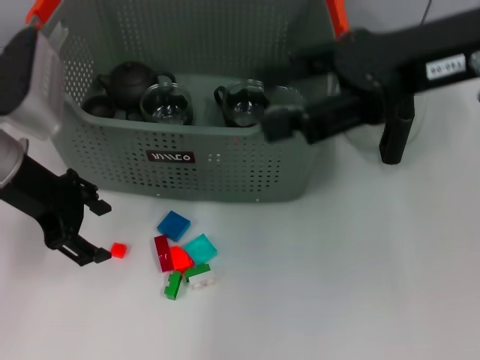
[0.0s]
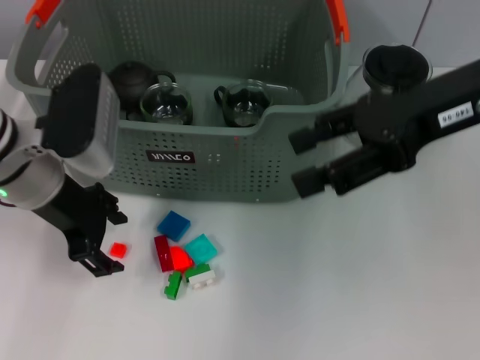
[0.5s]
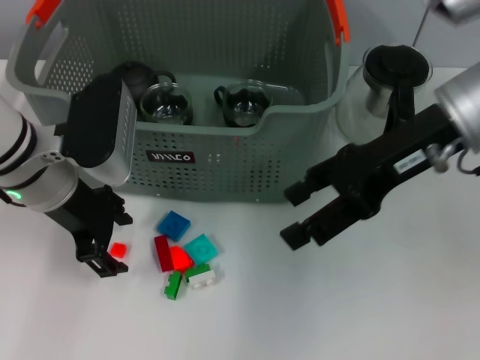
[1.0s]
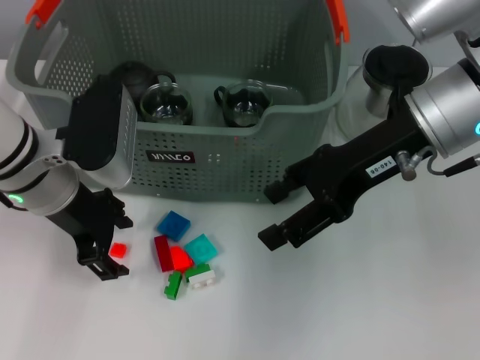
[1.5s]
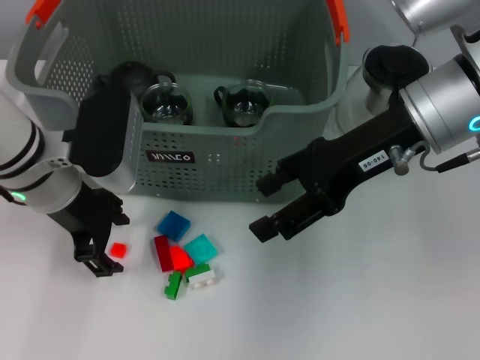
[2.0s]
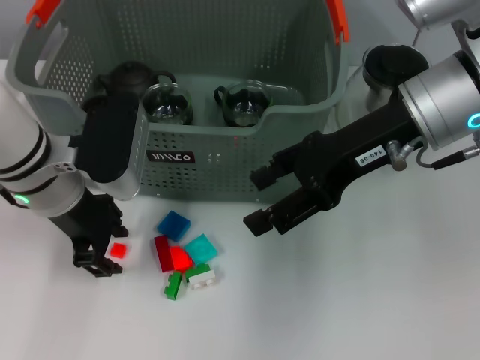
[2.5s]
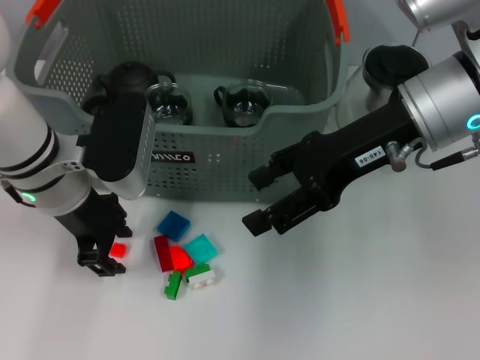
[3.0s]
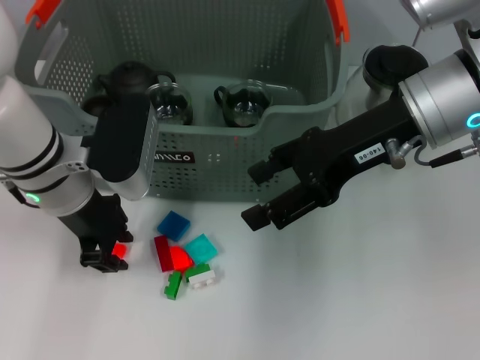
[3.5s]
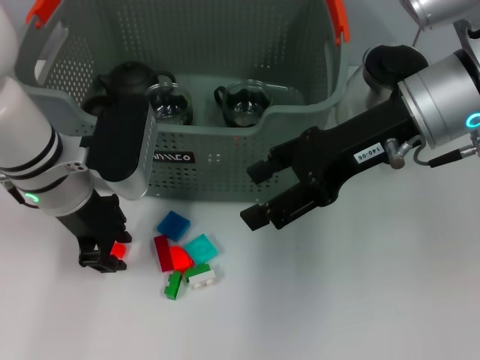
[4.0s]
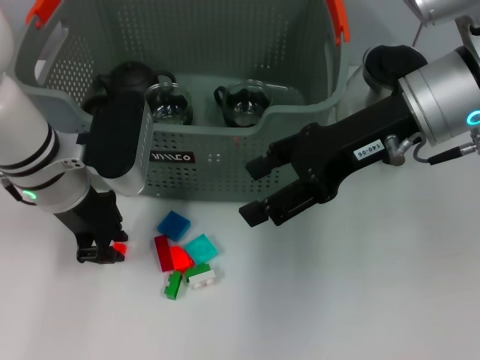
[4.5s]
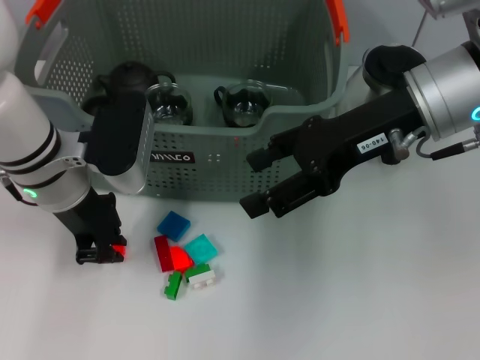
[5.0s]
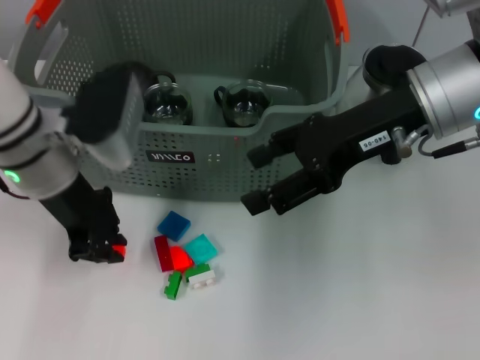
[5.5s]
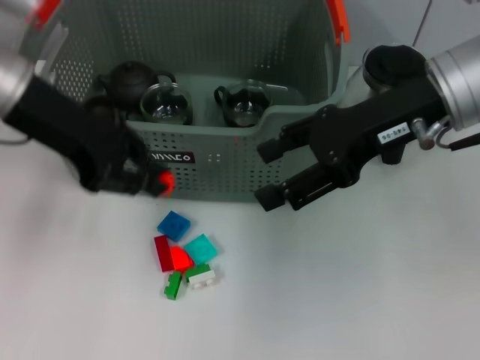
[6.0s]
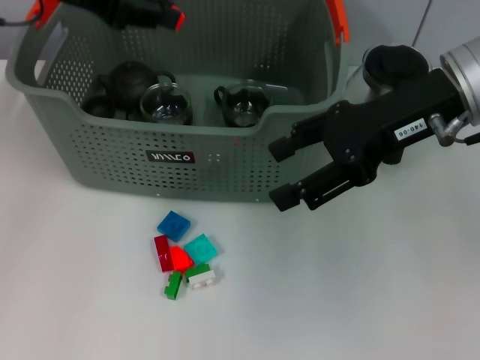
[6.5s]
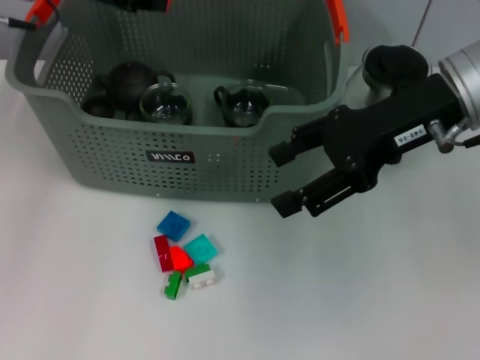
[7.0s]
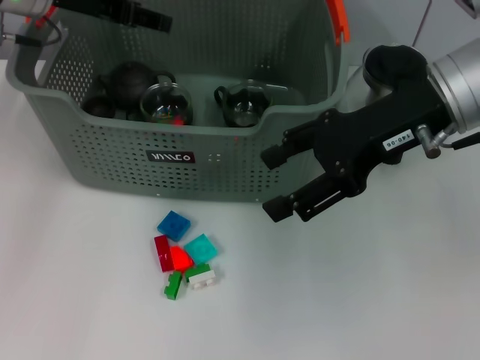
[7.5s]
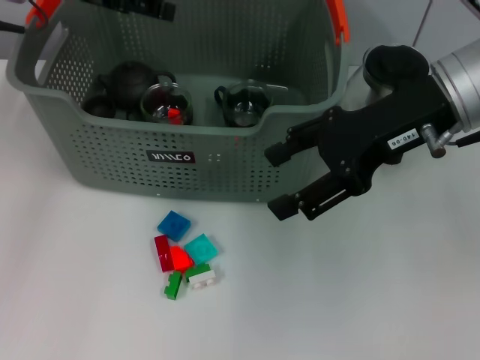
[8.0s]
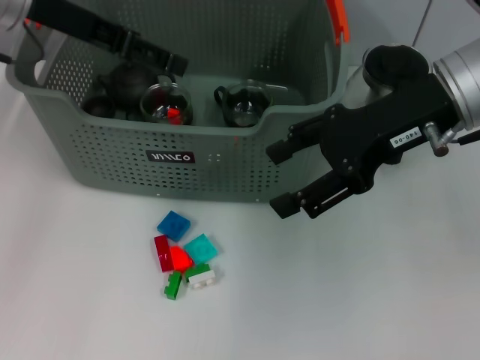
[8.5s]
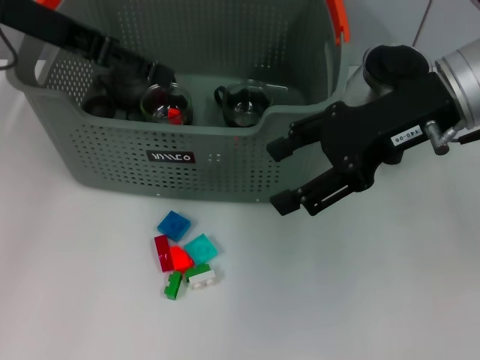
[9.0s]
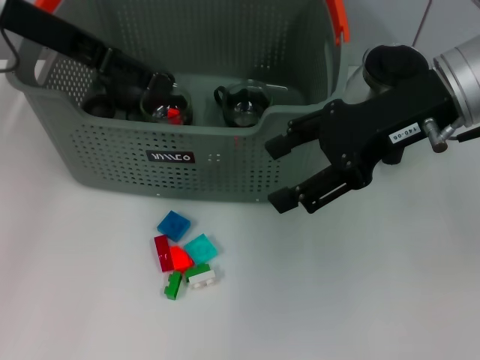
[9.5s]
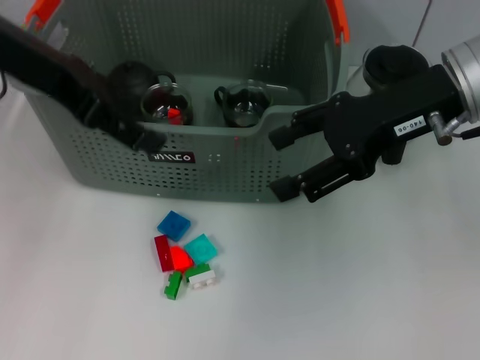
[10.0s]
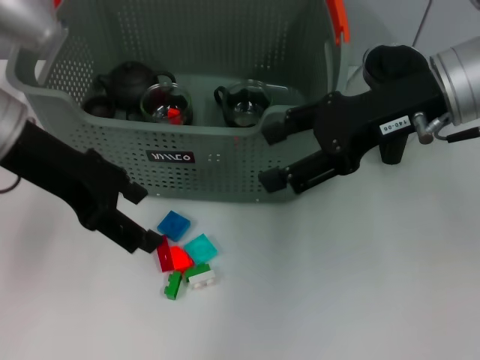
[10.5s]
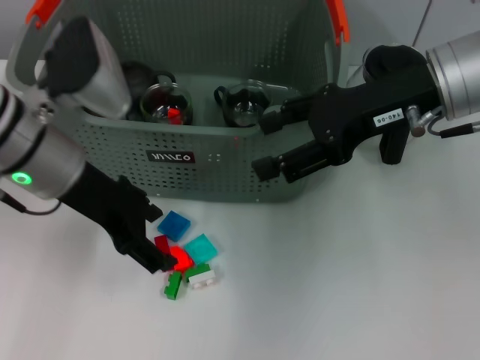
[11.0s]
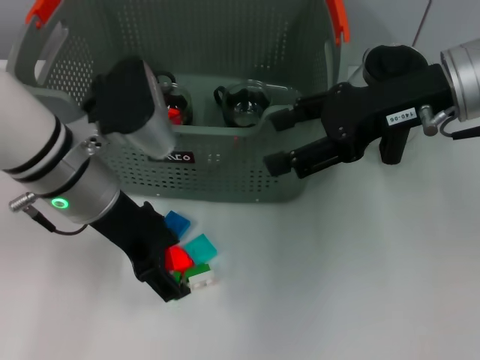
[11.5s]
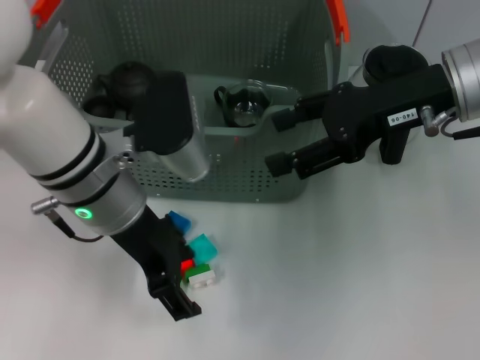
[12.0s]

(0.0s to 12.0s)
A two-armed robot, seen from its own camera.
Task of the whole recording: pick up the teacup on the table and place it into the storage bin, pick up the block on the table and place it into the storage bin.
Step, 0.0s - 5.5s: Grasp the orange block with left gripper.
Step, 6.0s - 7.5s: Place the orange block in the storage box with left gripper.
0.0s - 2.0s: The left gripper travels to the right by about 5 cm, while the right gripper goes approximately 5 cm downward.
2.0s - 4.0s: The left gripper closes.
4.0s - 6.0s: The left gripper travels upward by approximately 10 cm.
6.0s - 8.0s: The left gripper is displaced forward by approximately 10 cm, and opens up.
8.0s - 10.0s: The left gripper shifts about 10 cm backward.
10.0s - 12.0s: The left gripper is displaced downward and to the right by approximately 15 cm.

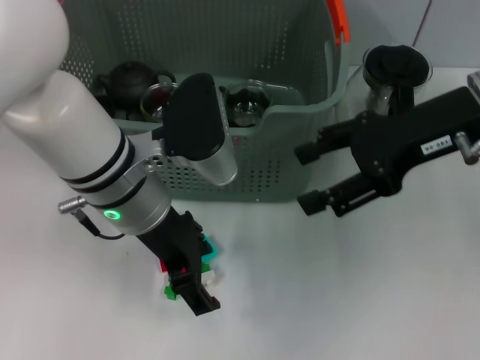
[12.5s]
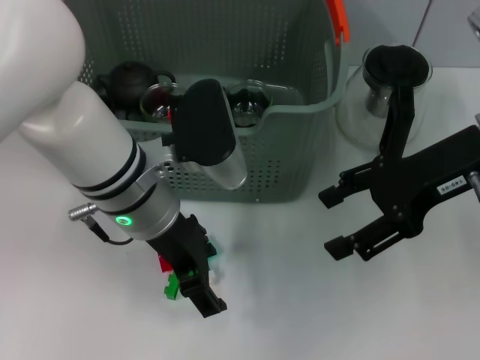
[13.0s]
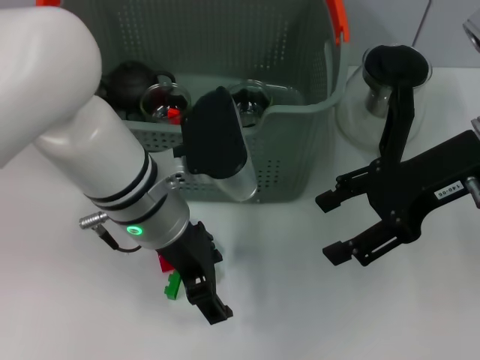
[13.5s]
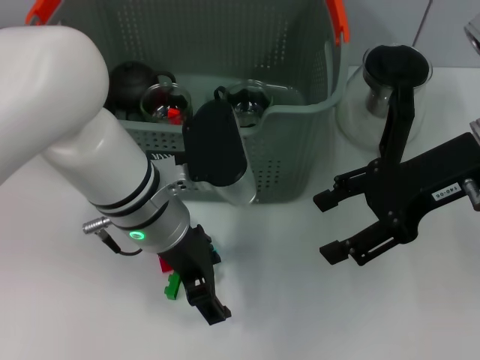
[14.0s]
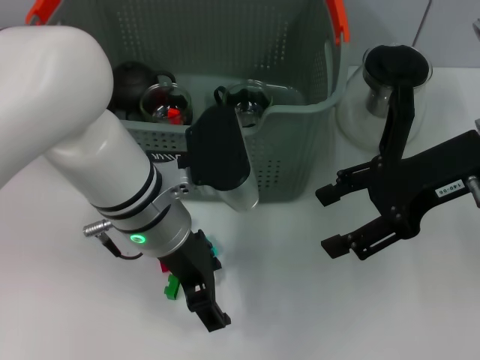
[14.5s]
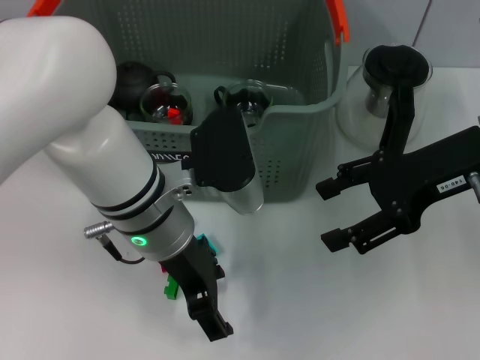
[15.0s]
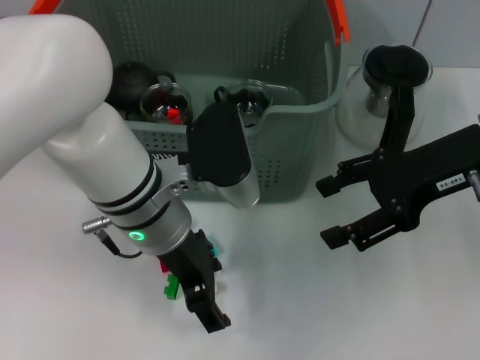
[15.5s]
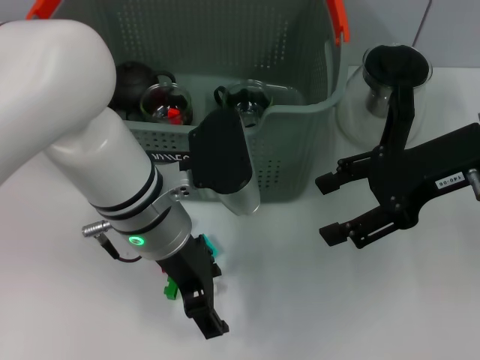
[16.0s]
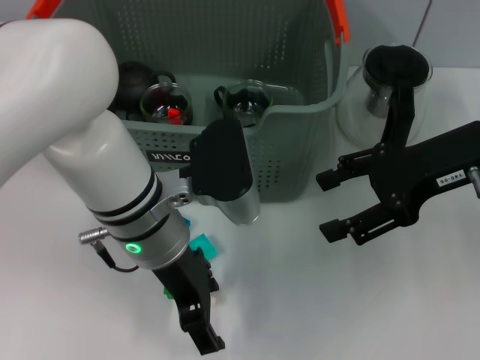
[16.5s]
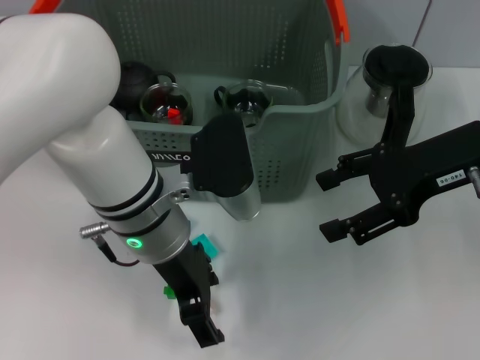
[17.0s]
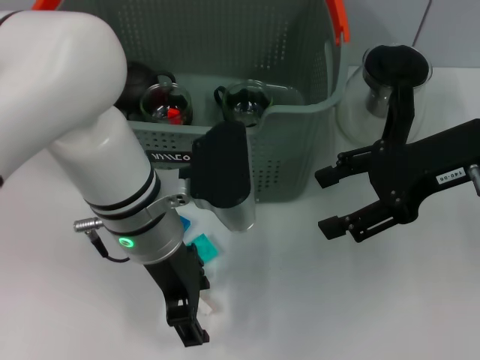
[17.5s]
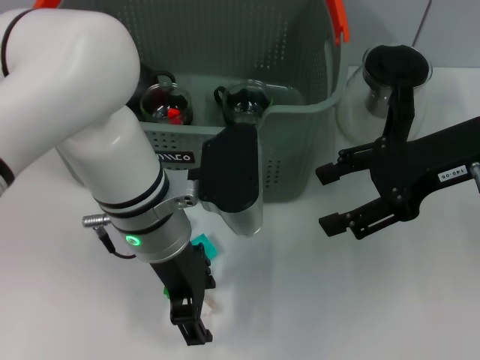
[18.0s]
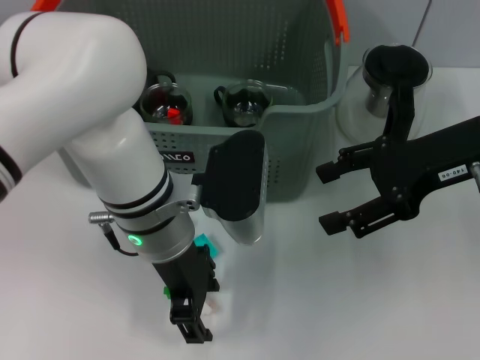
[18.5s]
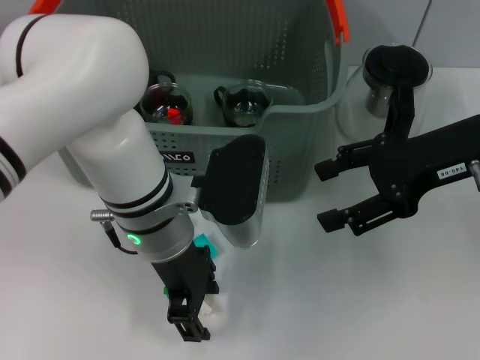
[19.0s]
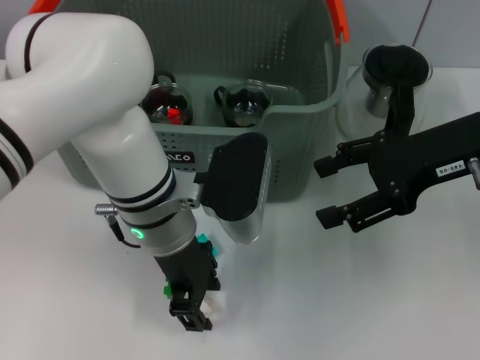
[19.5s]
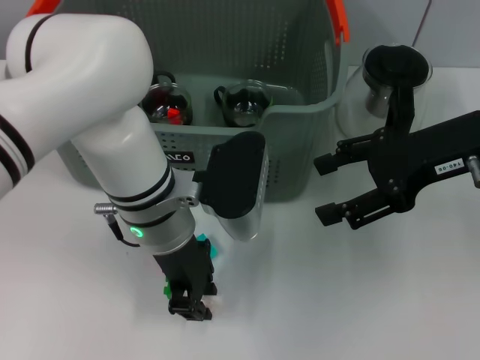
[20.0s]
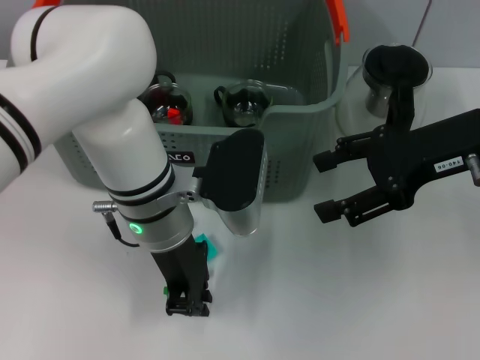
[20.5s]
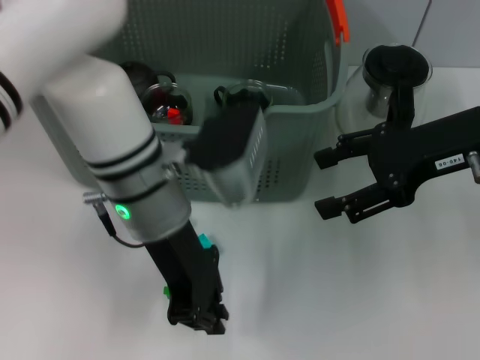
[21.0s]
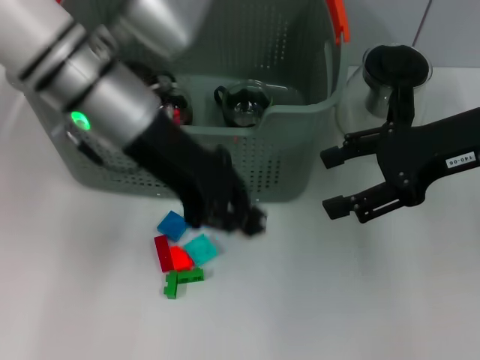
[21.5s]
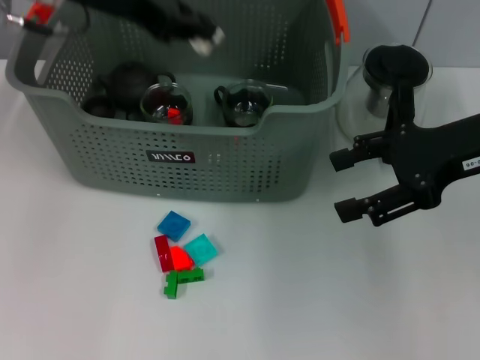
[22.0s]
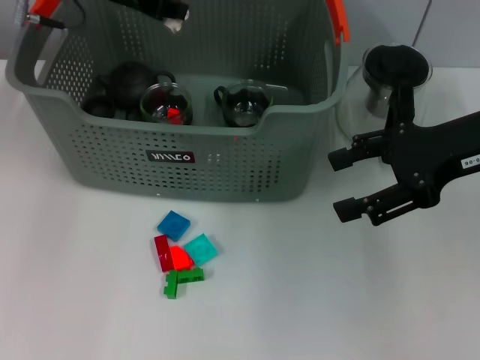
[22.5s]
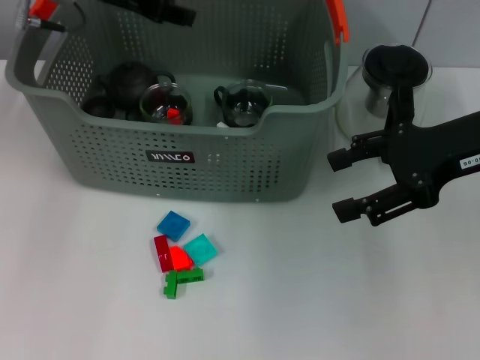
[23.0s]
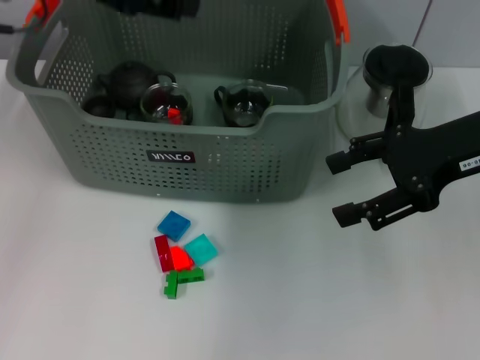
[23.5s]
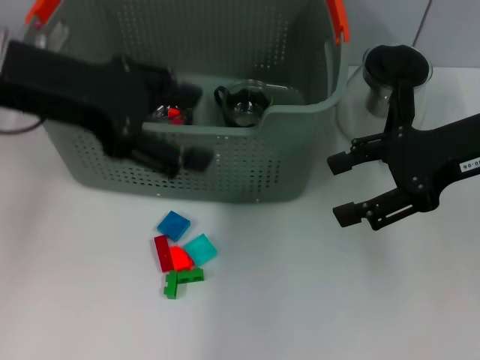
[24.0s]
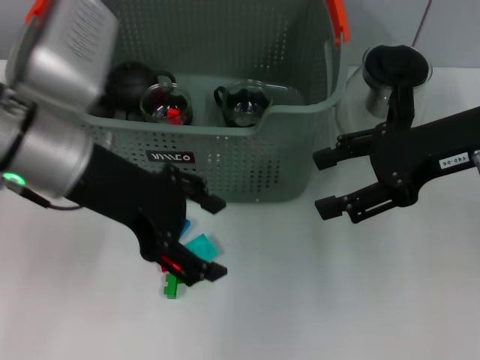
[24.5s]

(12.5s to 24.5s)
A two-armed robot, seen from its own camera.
Task of the whole recording: pick up the teacup on the table and place it into the storage bin, pick up the block on the table and place it into the storage bin.
Step, 12.5s - 21.0s: Grasp the white block with left gripper.
Step, 21.5s - 22.5s: Place the white block in the storage box with left gripper.
14.5s - 18.5s: There are only small adjustments of the grippers.
18.5s - 20.5s: The left gripper closes its fingers.
20.5s - 22.5s: The left gripper travels forward, upward and to the left by approximately 20 cm.
22.5s - 24.5s: The left gripper shifts about 15 cm backward, and opens its fingers.

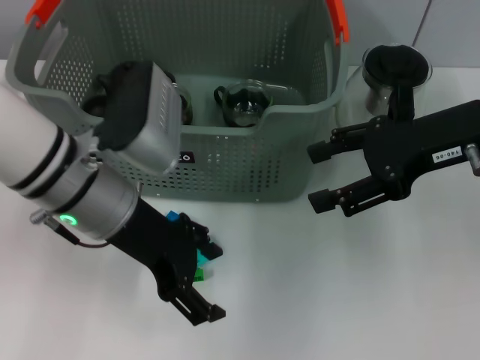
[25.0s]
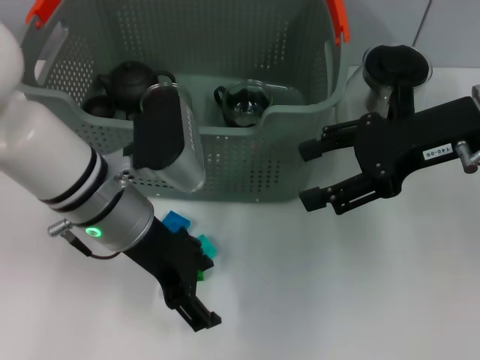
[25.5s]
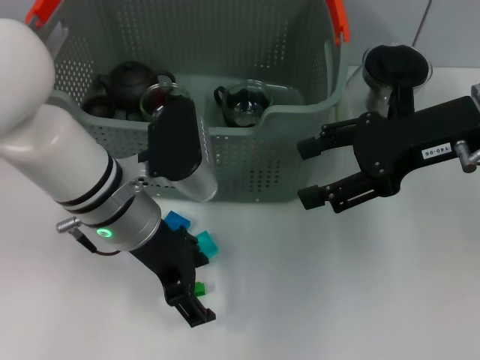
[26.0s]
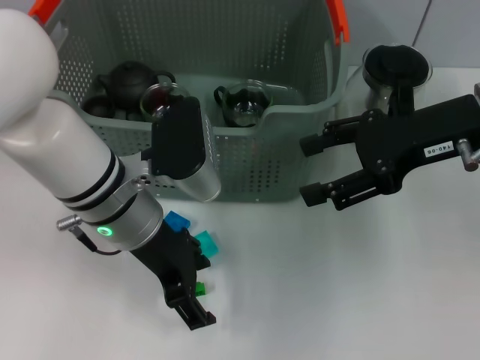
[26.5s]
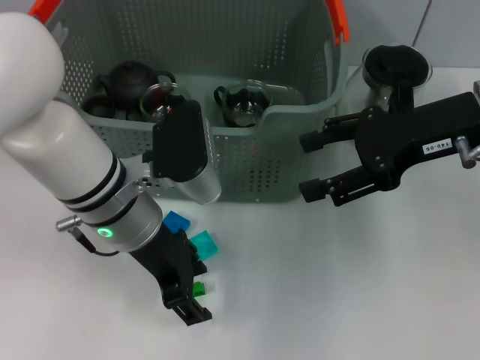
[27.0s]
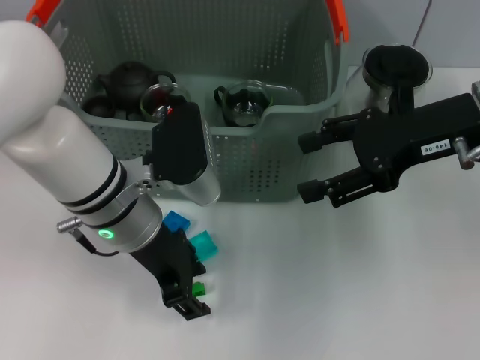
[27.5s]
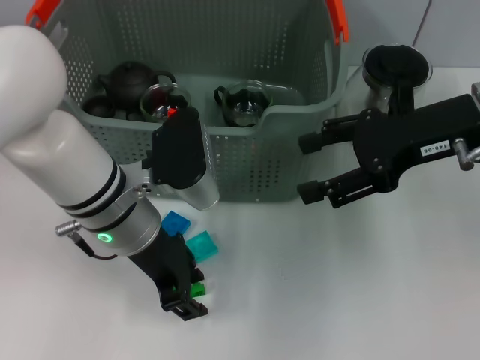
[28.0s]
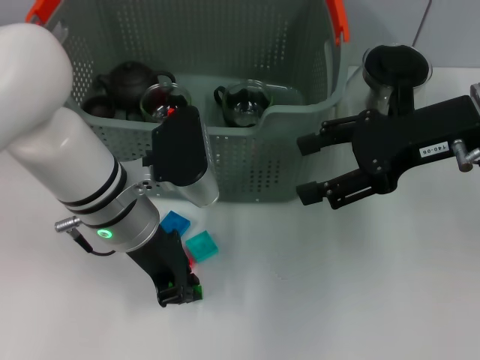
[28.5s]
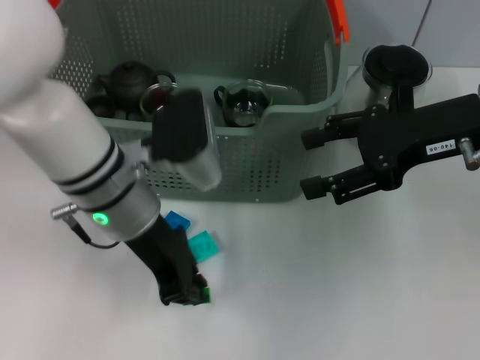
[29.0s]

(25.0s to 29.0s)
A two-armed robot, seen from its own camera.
Task of the whole recording: pick up the teacup on the table and place it into the storage bin, pick up the block on the table and place it into the storage bin.
Step, 25.0s - 29.0s: Grasp the green block with left gripper.
27.0s - 29.0s: The left gripper closes.
